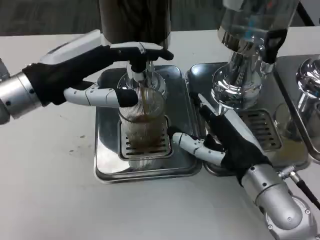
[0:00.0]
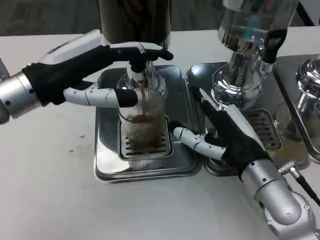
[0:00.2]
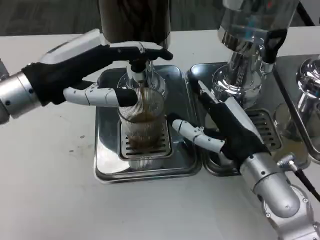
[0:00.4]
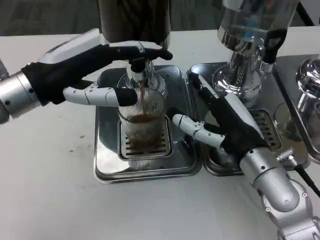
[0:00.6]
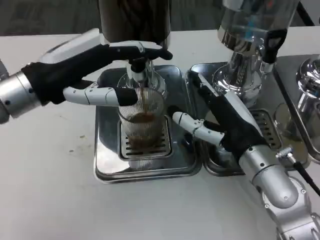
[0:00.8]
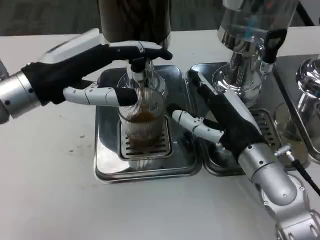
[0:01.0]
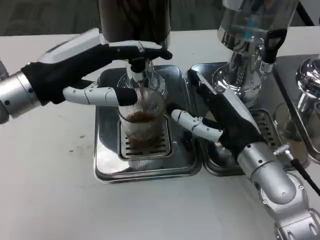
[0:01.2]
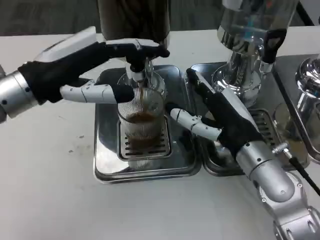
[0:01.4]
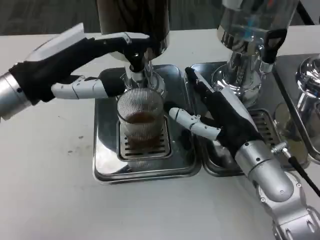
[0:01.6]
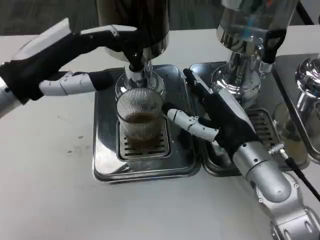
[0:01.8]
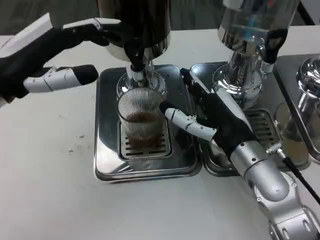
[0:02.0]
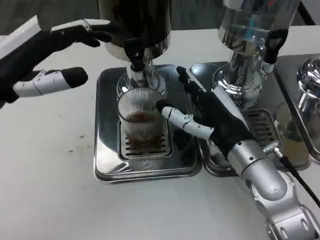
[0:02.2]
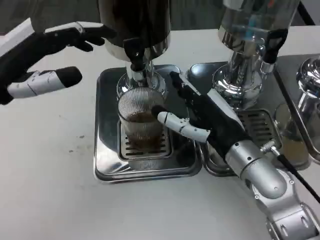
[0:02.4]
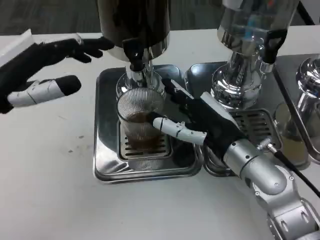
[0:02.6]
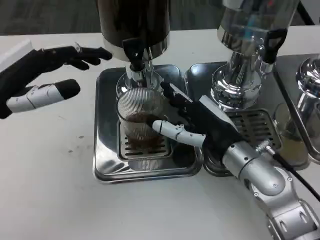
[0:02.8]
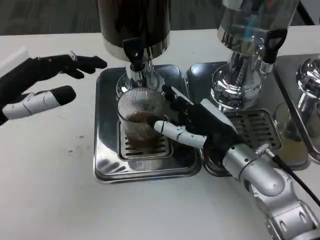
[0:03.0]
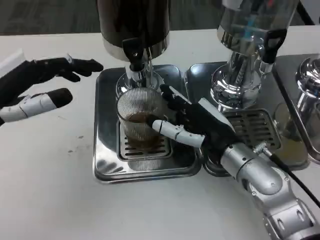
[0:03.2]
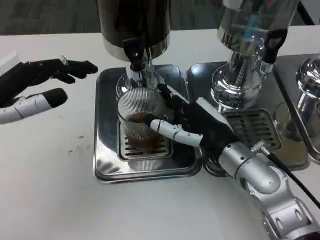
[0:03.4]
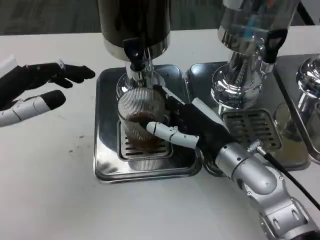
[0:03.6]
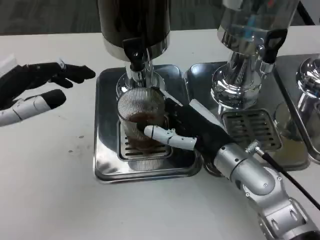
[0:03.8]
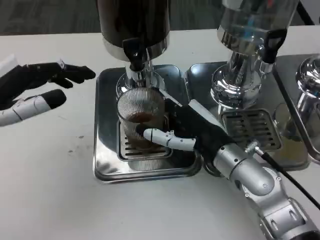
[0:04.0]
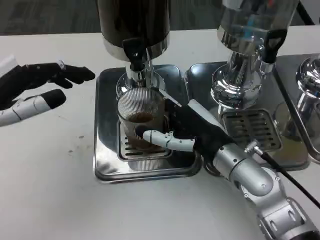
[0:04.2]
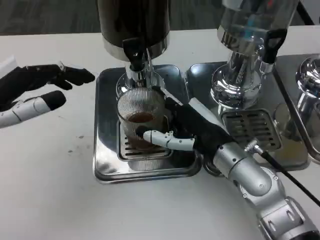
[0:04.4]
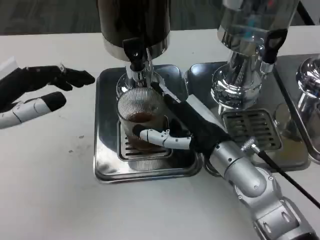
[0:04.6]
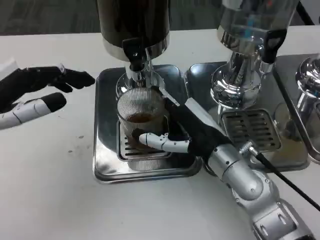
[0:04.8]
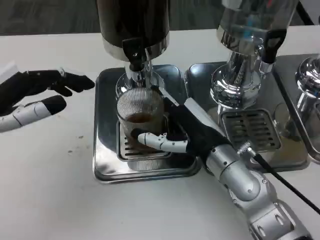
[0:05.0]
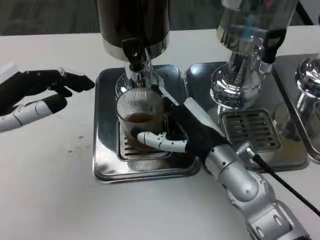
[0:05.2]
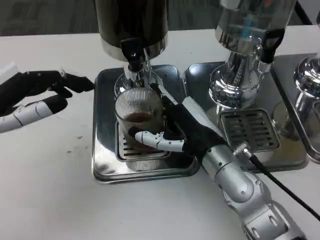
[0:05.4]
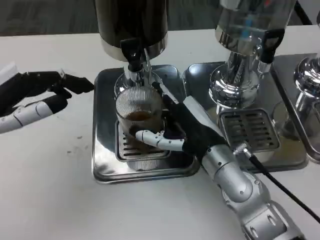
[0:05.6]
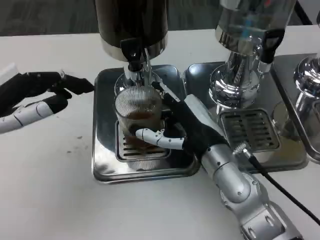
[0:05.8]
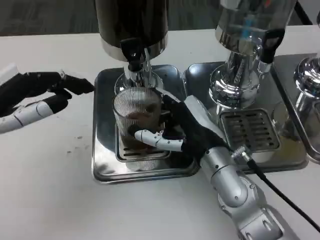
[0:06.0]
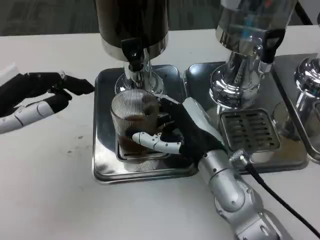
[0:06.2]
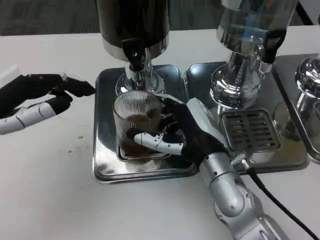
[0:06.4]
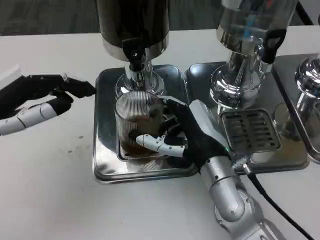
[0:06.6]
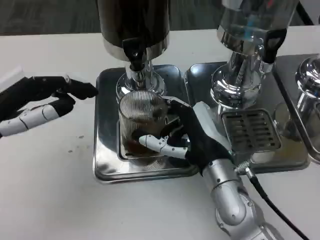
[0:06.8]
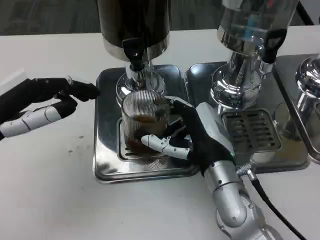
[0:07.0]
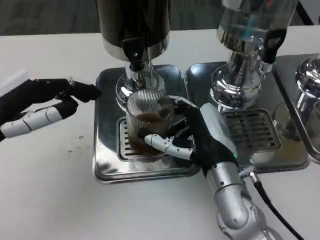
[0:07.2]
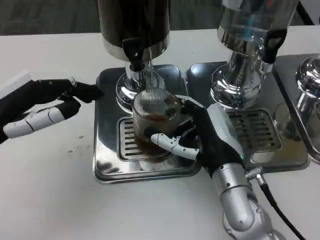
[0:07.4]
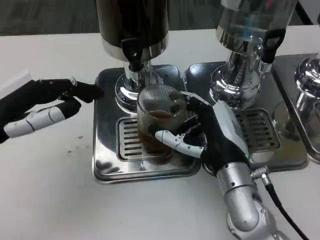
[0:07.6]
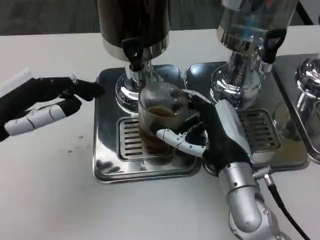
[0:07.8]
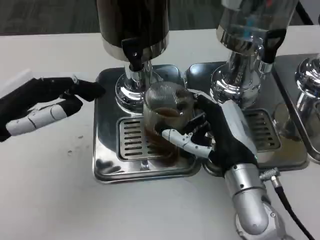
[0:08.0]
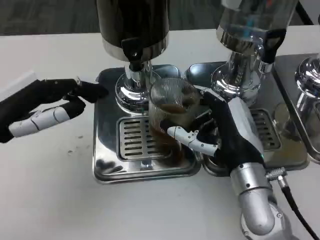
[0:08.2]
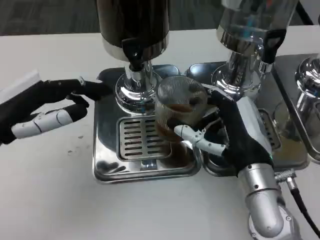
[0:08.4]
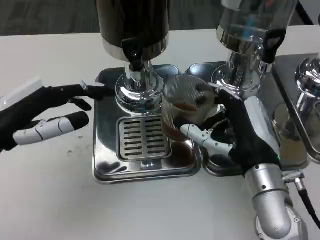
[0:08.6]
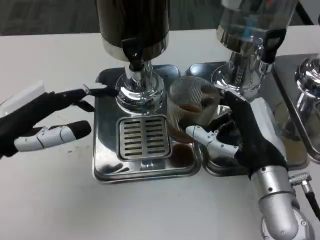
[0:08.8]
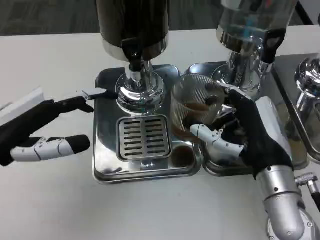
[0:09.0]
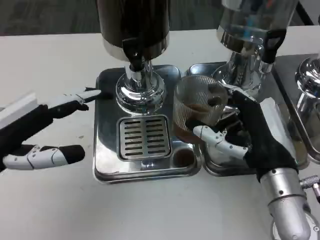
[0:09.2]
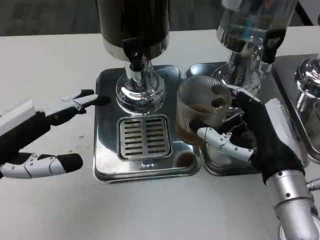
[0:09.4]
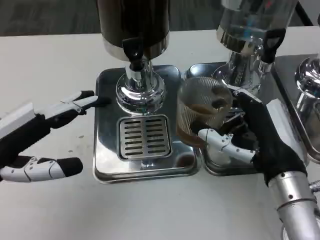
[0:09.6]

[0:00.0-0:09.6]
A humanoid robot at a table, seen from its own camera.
Task of the whole recording: Grasp the cup under the faucet to collect the drink, then remove the cup.
0:01.6 to 0:03.2: The left hand shifts approximately 5 cm to the left.
0:03.2 to 0:06.4: There are only small adjustments of the hands.
0:08.0 to 0:09.6: The right hand shifts by approximately 5 cm.

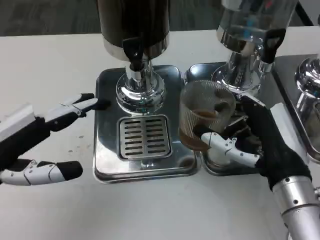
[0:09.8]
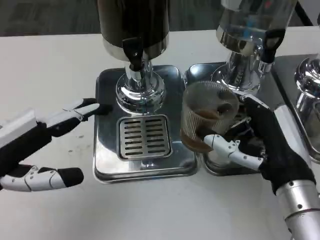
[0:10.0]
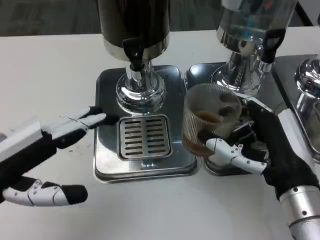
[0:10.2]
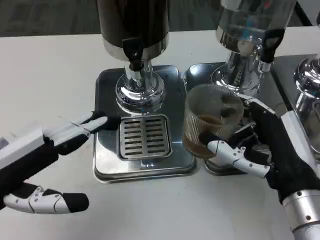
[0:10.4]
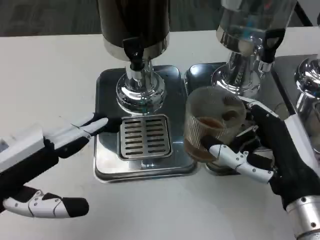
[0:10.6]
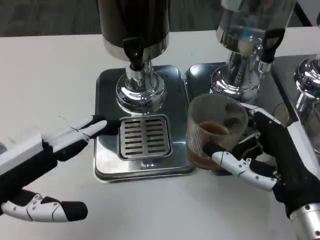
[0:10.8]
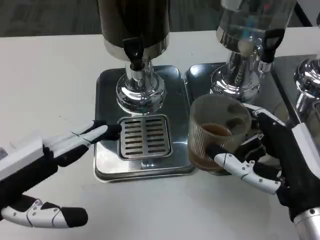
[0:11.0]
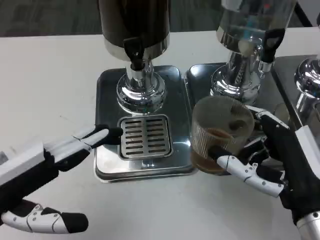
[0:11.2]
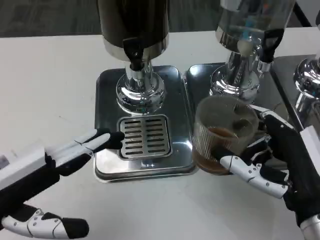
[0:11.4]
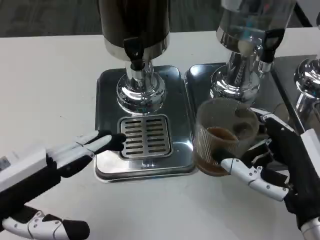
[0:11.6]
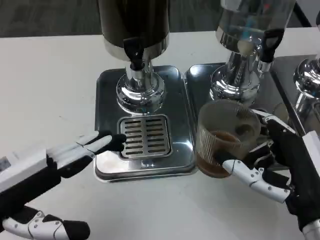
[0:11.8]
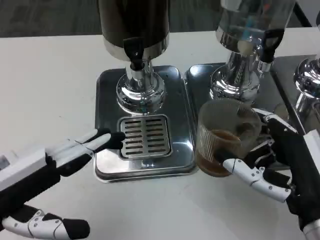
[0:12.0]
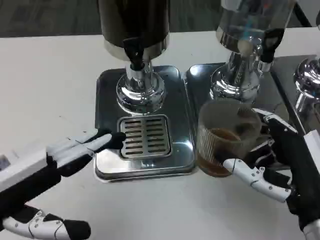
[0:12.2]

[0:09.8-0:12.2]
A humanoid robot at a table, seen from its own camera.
Task of the whole recording: Grasp the cup under the faucet to collect the drink, then remove the cup.
0:09.8 to 0:11.0: The right hand moves roughly 5 cm.
0:11.0 to 0:12.2: Neither hand changes place.

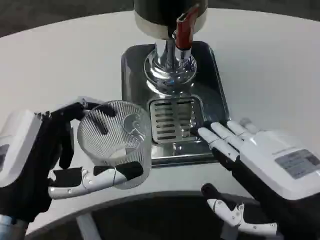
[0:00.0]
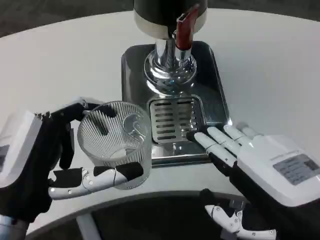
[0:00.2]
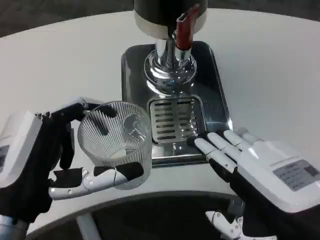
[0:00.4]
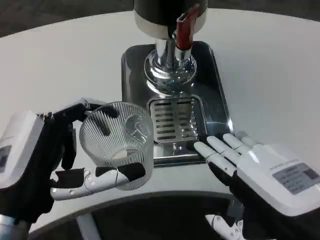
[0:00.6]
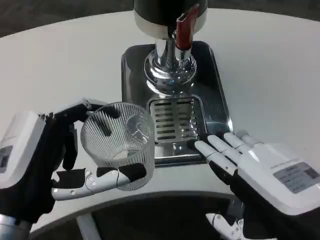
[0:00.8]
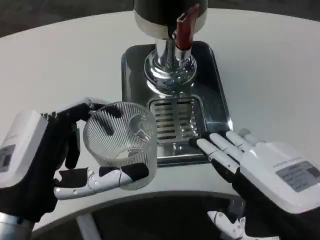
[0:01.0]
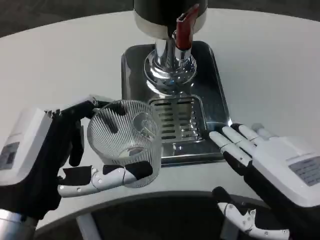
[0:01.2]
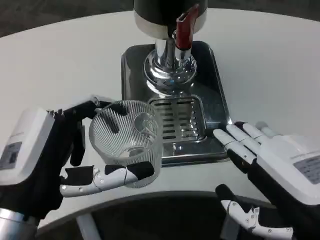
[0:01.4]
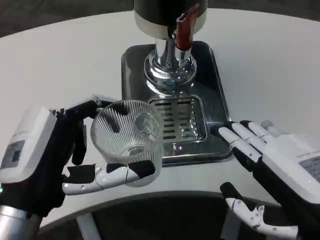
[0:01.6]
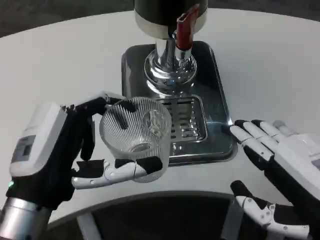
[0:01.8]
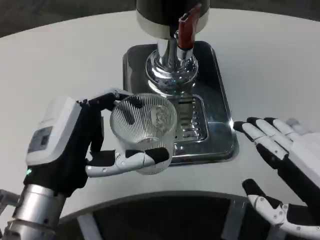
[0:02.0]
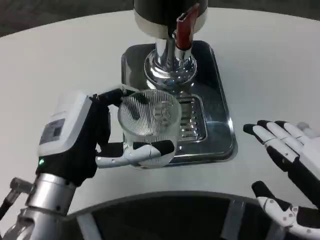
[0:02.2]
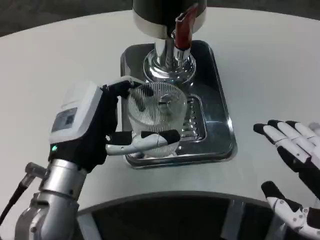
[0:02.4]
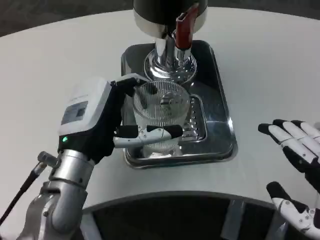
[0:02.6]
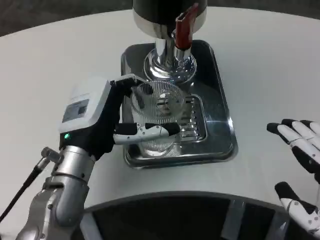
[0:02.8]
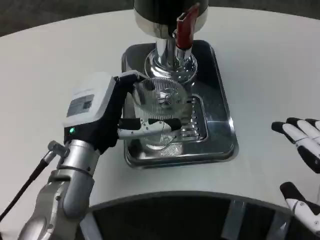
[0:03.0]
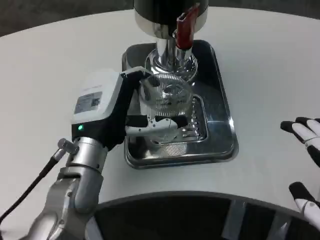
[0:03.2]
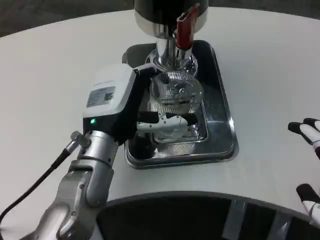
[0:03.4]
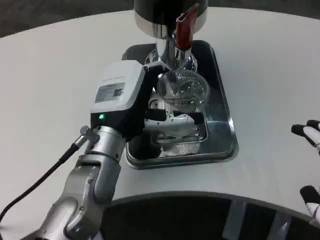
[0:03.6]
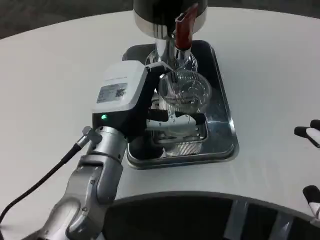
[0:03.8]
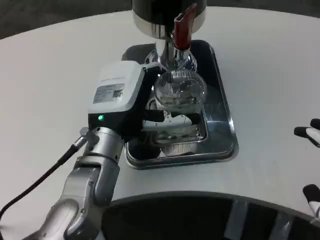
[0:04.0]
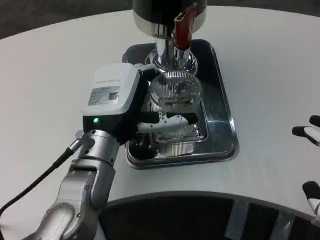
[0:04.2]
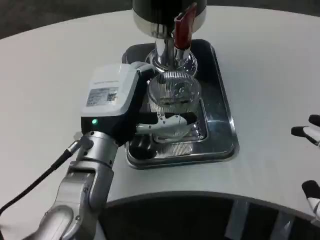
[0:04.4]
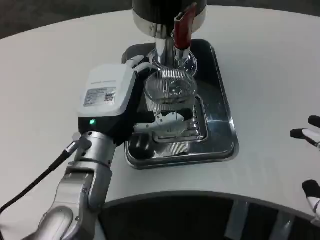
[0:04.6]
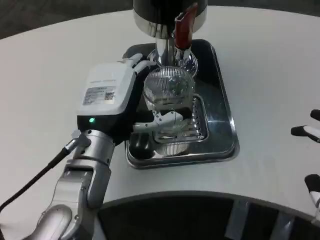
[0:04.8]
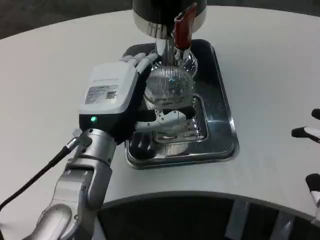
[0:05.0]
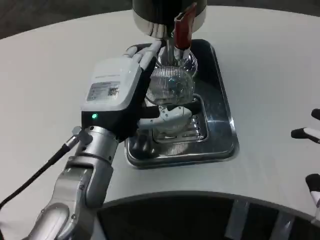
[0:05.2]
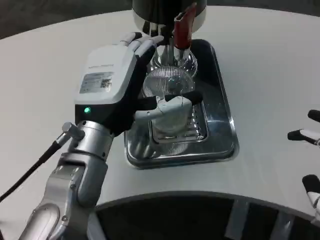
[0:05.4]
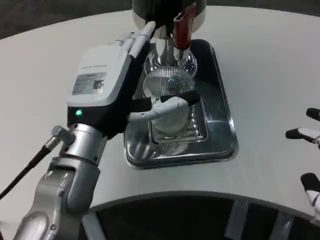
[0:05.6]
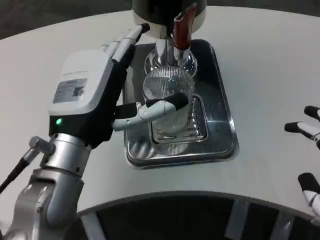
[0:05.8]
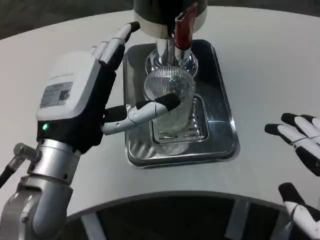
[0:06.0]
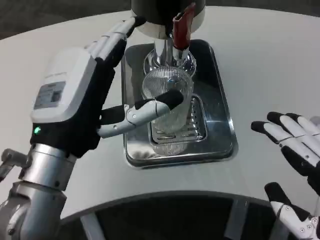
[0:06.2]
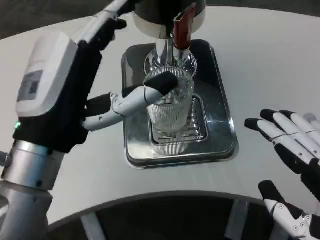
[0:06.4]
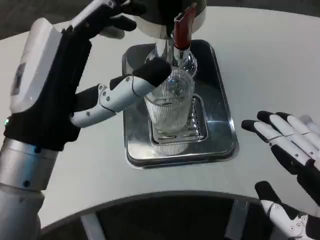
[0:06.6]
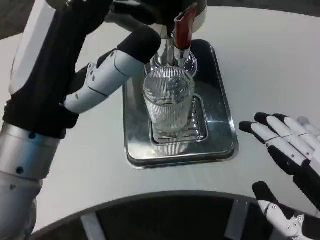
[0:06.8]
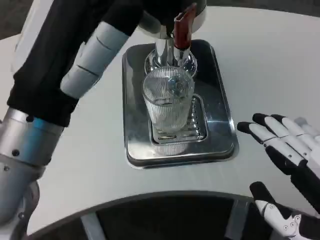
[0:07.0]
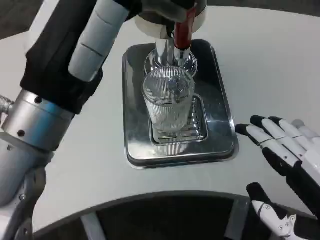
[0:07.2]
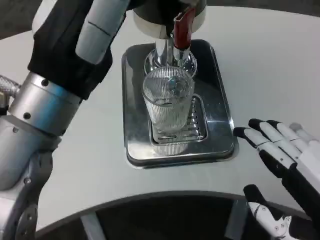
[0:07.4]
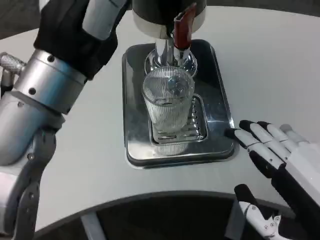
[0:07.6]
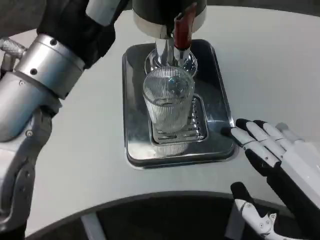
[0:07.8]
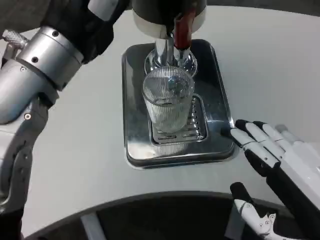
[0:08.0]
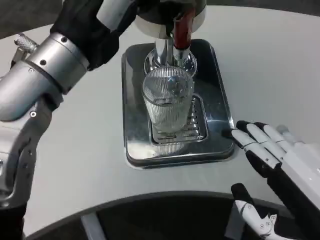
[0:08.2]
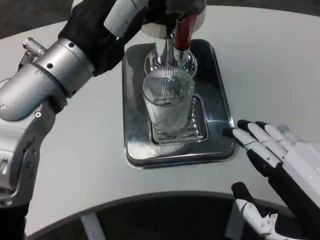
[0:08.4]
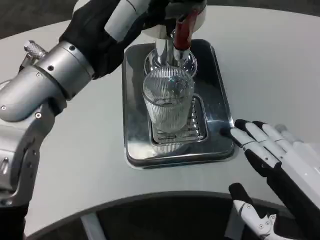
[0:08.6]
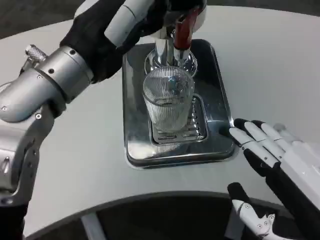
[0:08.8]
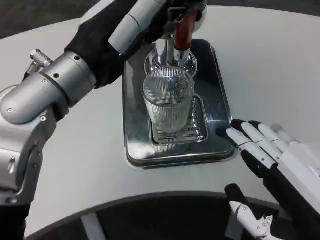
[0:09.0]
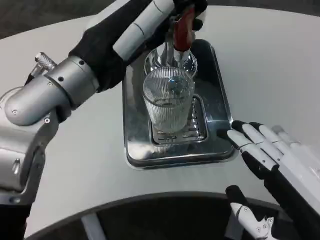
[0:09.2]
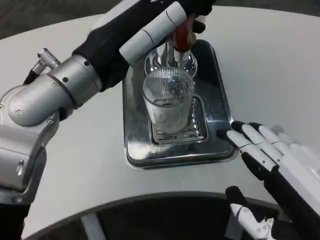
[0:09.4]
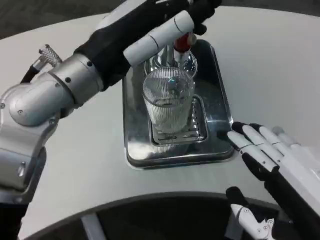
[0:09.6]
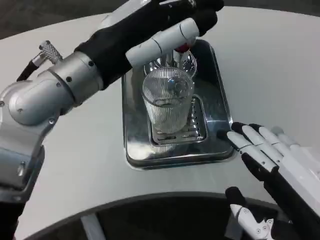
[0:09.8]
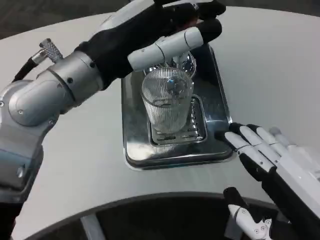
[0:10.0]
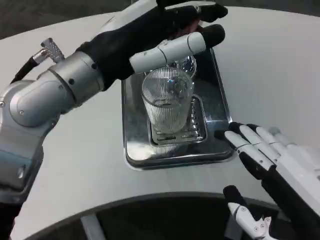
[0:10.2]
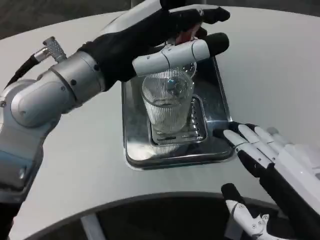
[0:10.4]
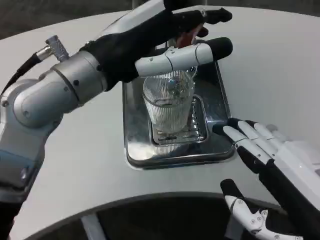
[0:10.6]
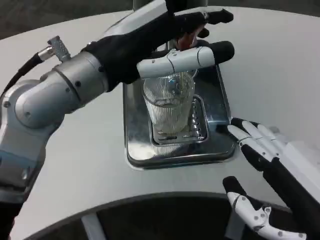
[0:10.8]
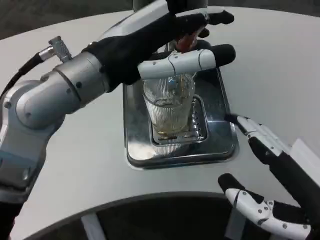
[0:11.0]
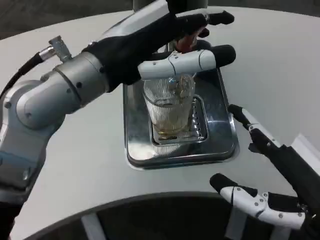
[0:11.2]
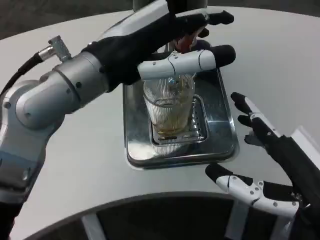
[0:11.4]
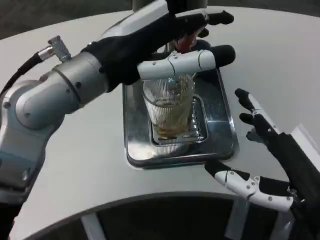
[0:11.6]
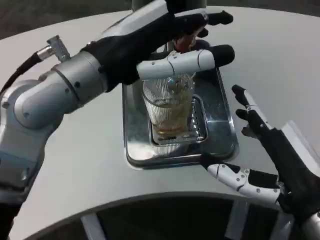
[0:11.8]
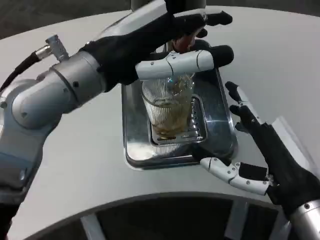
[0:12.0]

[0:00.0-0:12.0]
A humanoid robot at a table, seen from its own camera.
Task of the whole recording: Grasp the cup under the faucet to collect the drink, then remove the cup.
0:01.6 to 0:03.0: The left hand heads forward, covering roughly 10 cm; the right hand moves about 5 cm.
0:04.4 to 0:06.0: The left hand shifts roughly 5 cm backward.
0:06.0 to 0:07.6: The left hand shifts some 10 cm upward.
0:07.6 to 0:09.0: The left hand moves forward, approximately 5 cm.
0:10.4 to 0:12.0: The right hand is displaced forward by about 10 cm.
